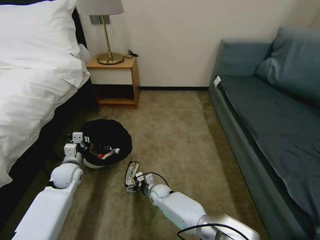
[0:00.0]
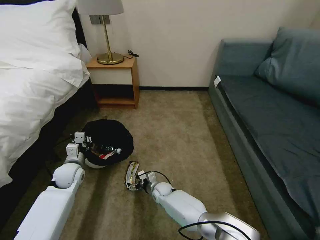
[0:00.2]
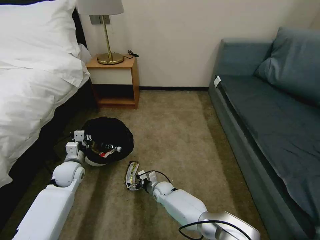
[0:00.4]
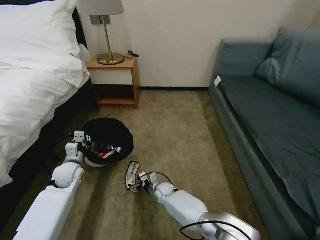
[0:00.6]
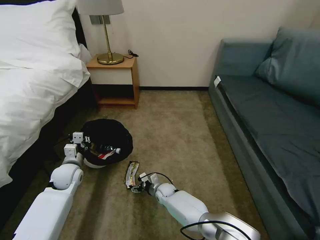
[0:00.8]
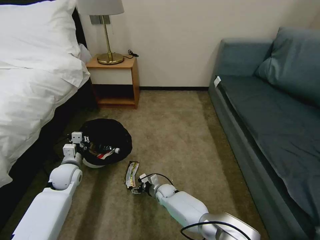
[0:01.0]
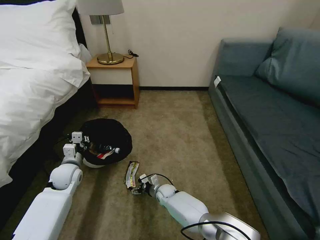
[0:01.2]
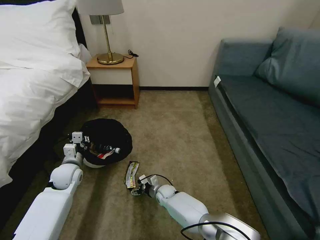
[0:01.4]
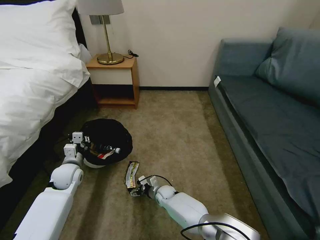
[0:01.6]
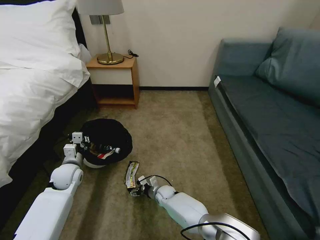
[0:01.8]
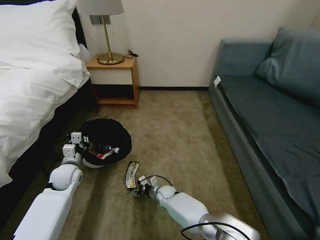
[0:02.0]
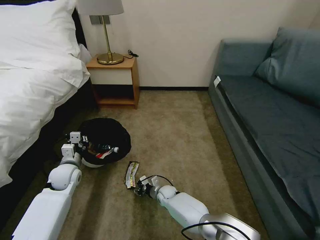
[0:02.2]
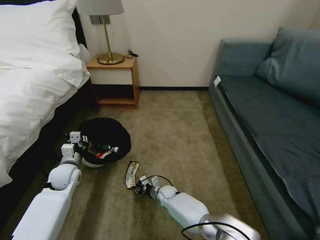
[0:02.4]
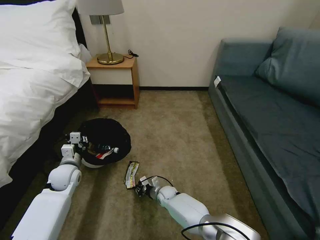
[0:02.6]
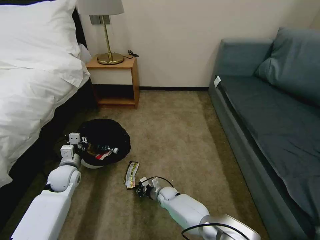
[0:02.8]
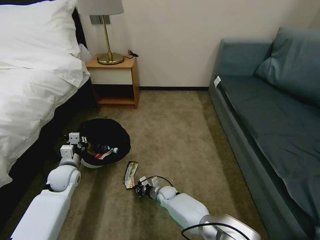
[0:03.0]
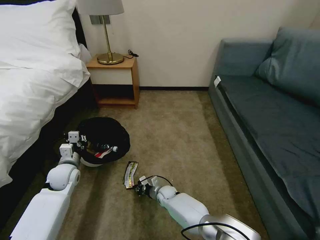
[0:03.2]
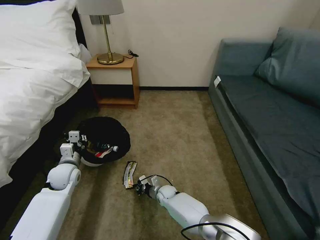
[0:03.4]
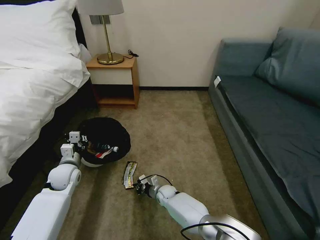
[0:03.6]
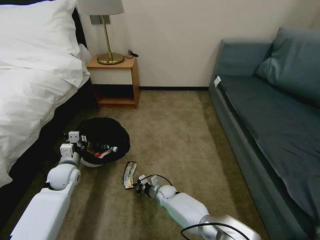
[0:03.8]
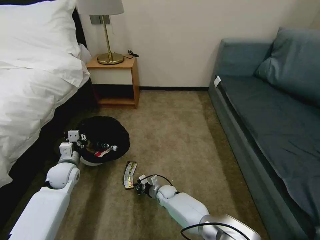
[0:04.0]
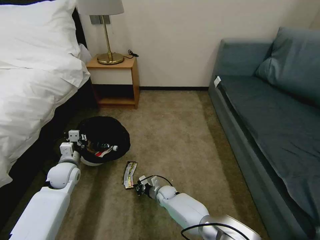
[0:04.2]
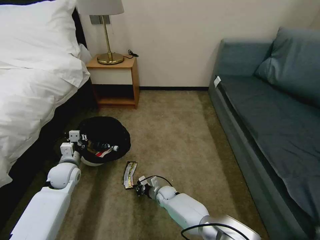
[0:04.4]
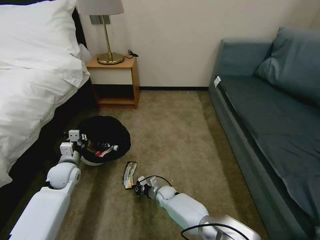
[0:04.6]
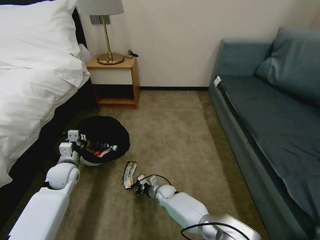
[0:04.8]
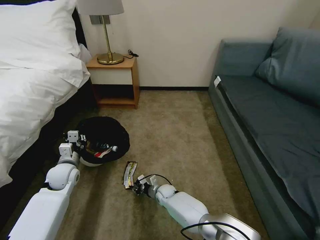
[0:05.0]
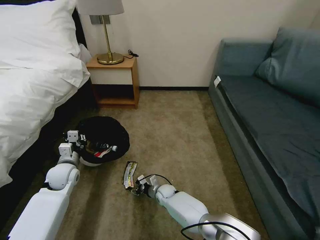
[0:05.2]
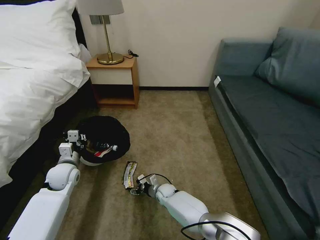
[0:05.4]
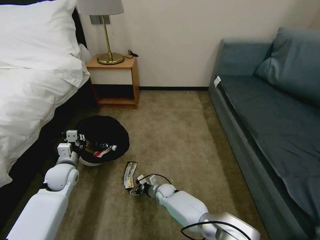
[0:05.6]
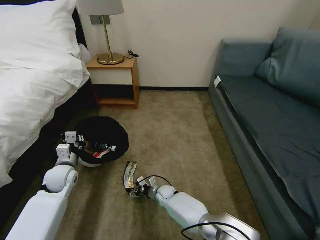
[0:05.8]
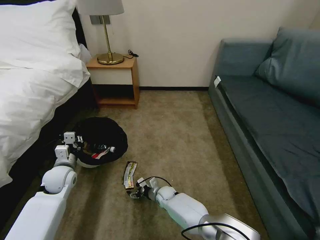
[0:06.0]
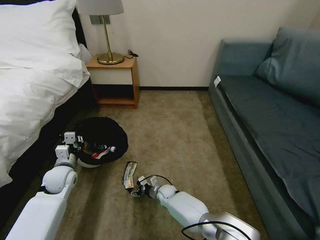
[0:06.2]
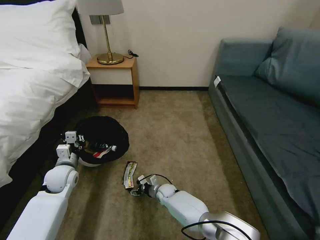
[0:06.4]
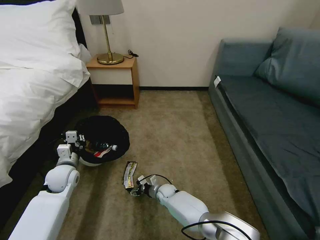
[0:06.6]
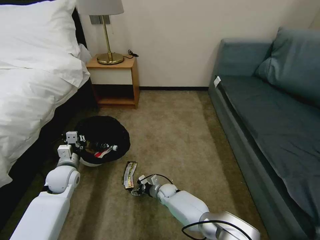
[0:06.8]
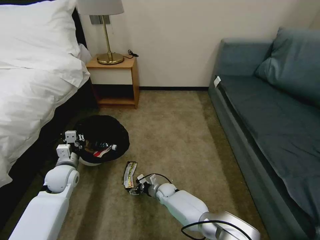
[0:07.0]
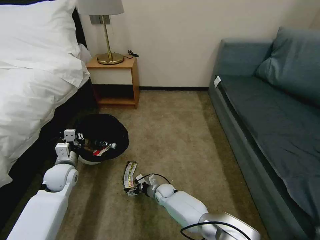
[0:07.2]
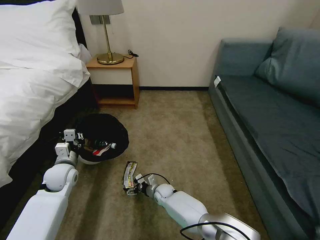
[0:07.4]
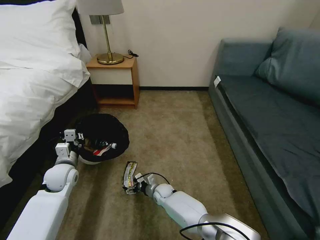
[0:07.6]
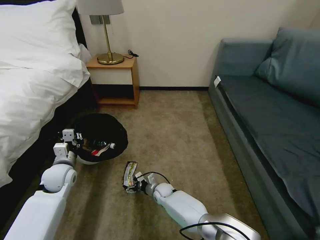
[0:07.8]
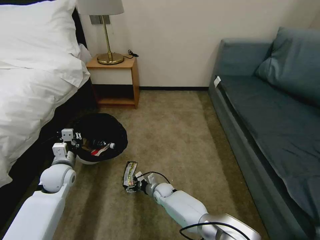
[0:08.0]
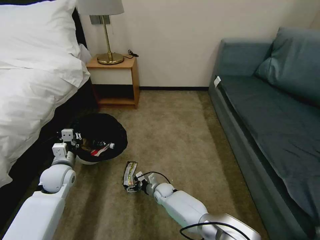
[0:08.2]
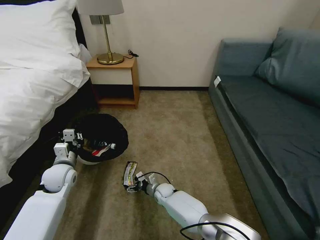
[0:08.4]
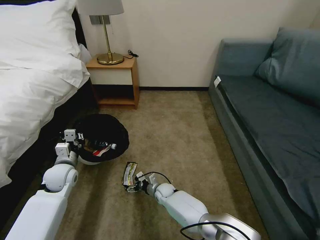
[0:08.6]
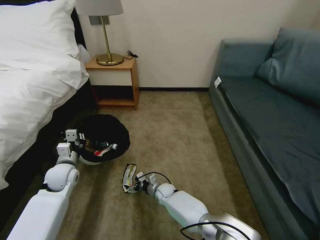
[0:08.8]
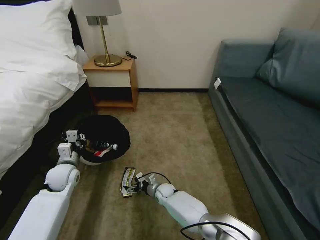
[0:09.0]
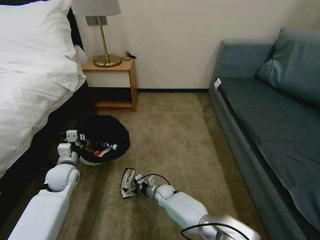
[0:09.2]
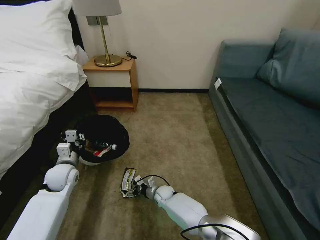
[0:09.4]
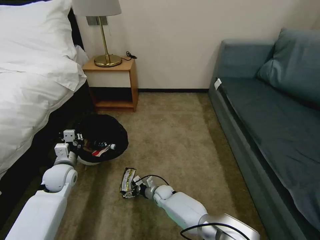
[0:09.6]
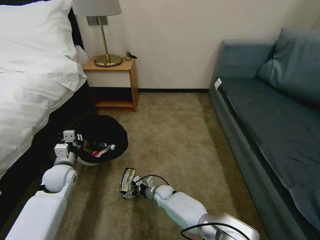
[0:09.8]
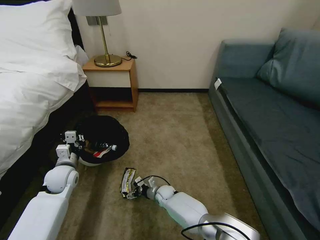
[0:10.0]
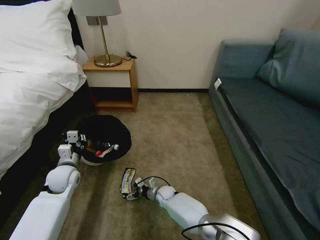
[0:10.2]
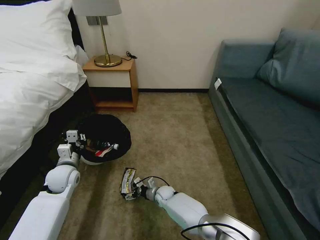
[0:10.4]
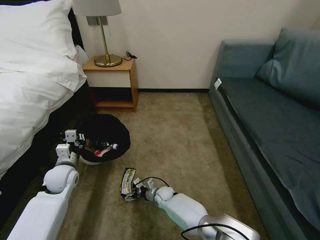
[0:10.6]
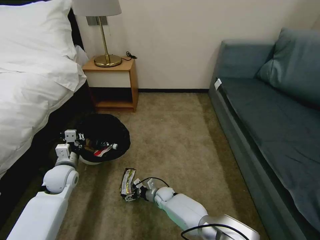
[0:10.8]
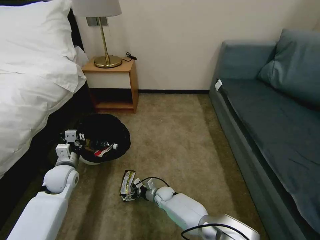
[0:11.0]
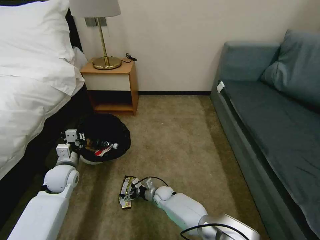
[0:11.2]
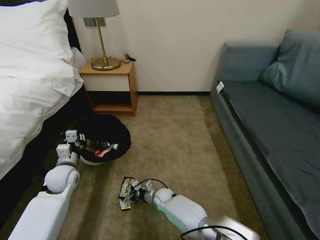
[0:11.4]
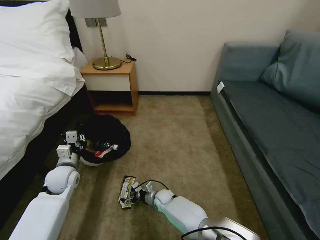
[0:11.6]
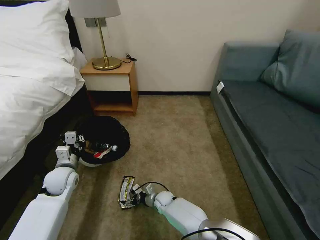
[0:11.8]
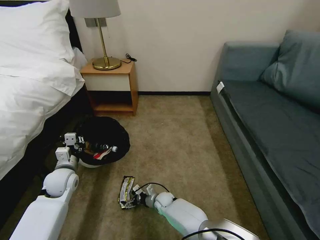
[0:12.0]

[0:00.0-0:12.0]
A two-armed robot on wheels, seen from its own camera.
Task of the whole recording: Pick up the trash bin, then pick up the garbage on the floor and place it into the trash bin.
0:00.0 to 0:01.6: The grippers stay close to where they were, moving slightly.
0:01.6 to 0:03.0: The right gripper closes its fingers.
0:03.0 to 0:04.4: Both grippers stay put.
0:04.4 to 0:06.0: The right gripper opens.
0:06.0 to 0:07.6: The grippers move only a little.
0:07.6 to 0:09.0: The two grippers keep their place.
0:09.0 to 0:12.0: The grippers make only small movements.

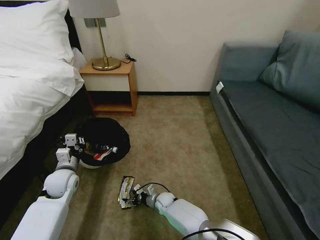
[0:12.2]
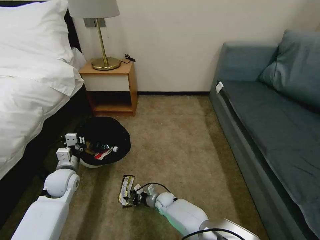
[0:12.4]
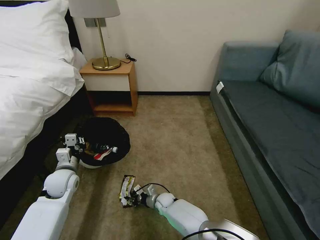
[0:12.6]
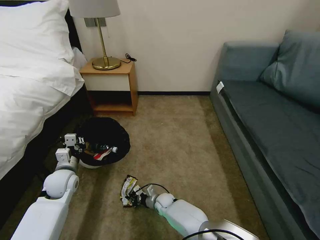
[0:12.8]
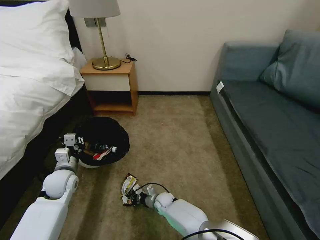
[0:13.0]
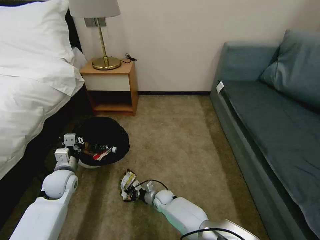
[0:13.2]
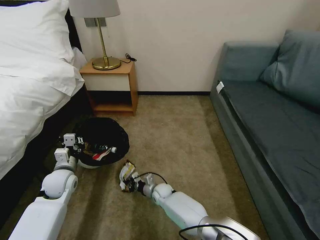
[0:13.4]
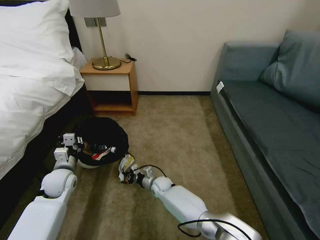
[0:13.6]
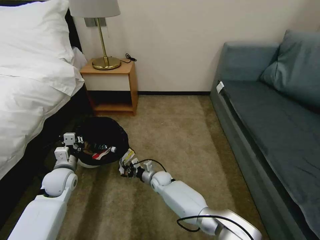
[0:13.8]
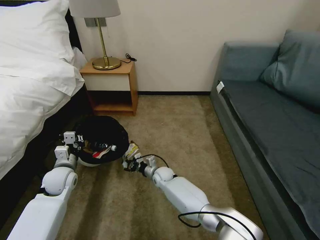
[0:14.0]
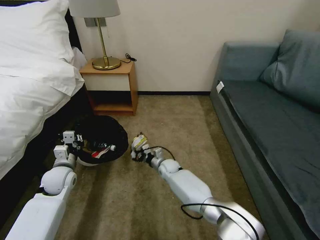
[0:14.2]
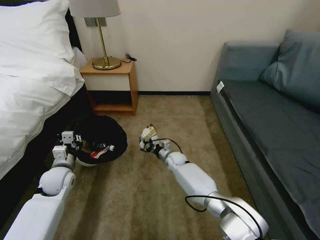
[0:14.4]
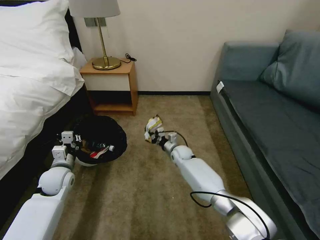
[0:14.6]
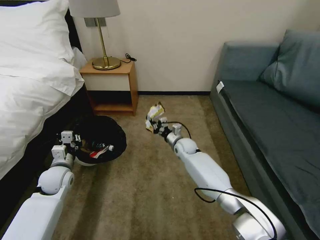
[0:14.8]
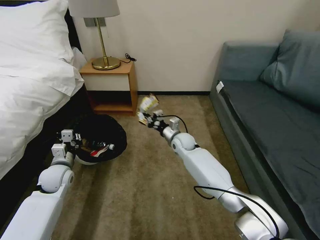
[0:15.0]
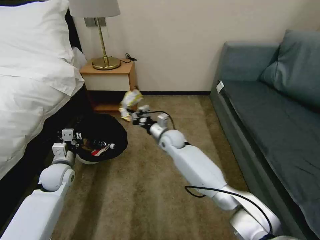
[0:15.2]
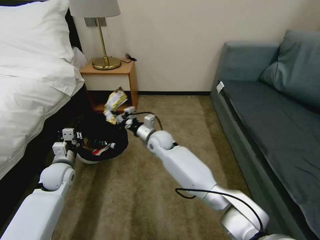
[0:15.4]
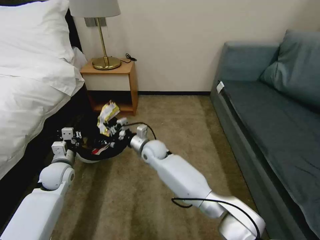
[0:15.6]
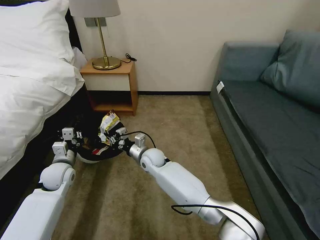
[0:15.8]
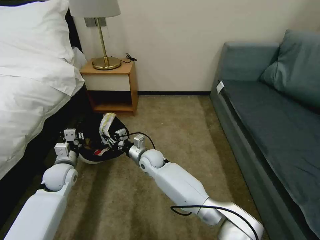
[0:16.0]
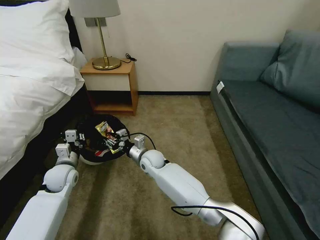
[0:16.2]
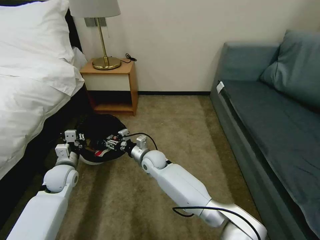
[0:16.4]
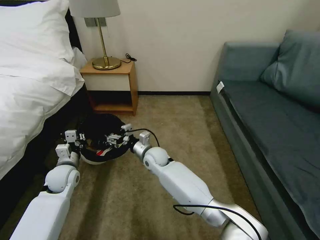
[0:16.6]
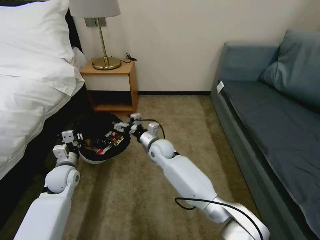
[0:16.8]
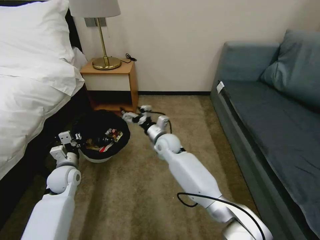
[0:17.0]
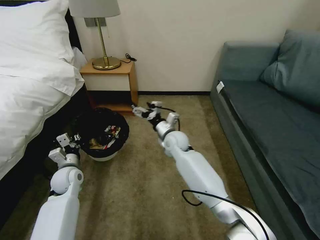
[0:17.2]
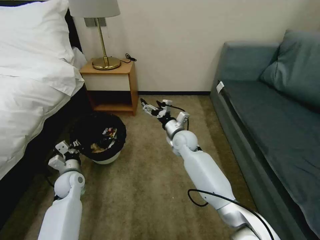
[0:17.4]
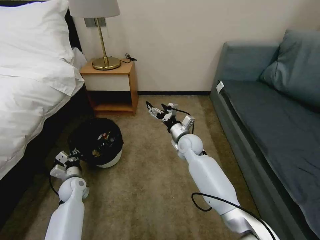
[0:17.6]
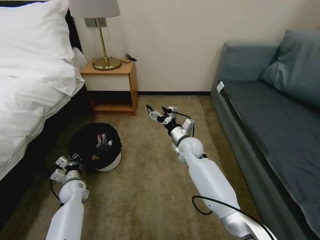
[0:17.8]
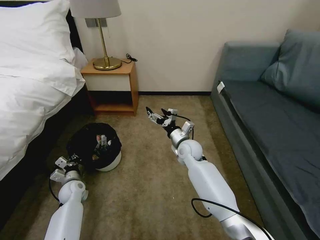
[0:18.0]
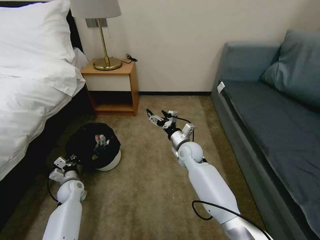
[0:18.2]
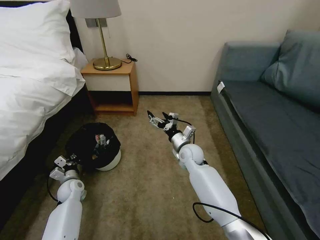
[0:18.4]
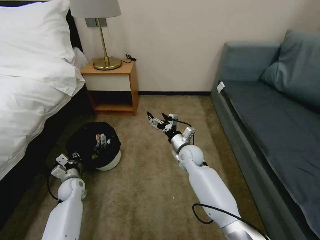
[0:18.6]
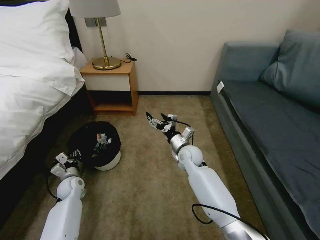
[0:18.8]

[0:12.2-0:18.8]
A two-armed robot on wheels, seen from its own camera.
Task of the whole recording: Pick up the trash bin, then pick up the garbage on the floor and place it into the trash bin.
0:12.2 to 0:13.8: The right gripper heads upward and forward, covering about 10 cm, and closes its fingers.
0:13.8 to 0:15.4: The right gripper moves upward, about 20 cm.
0:15.4 to 0:17.2: The right gripper goes approximately 5 cm to the right, and opens up.
0:17.2 to 0:18.8: The right gripper travels to the right and downward by roughly 5 cm, while the left gripper heads downward, covering roughly 10 cm, and opens.

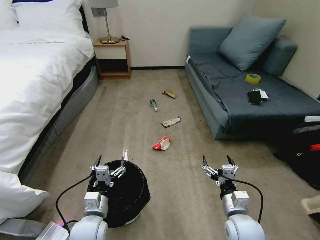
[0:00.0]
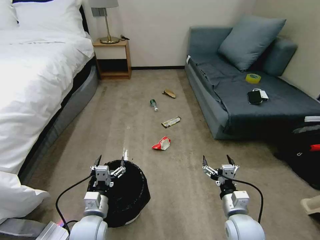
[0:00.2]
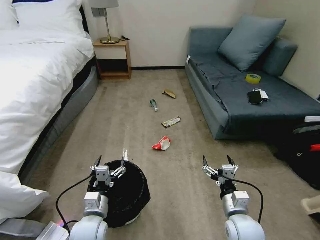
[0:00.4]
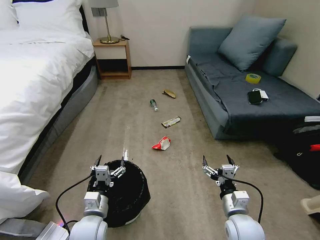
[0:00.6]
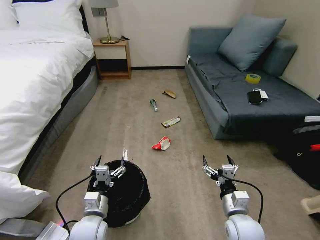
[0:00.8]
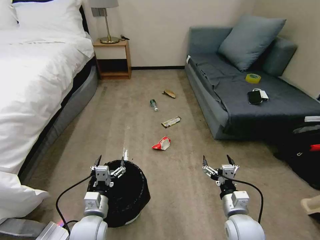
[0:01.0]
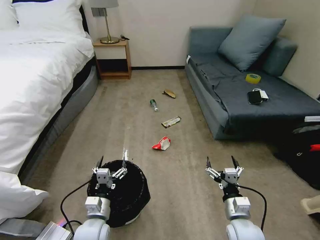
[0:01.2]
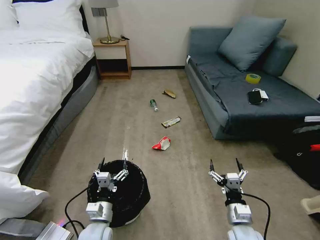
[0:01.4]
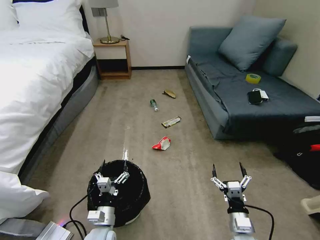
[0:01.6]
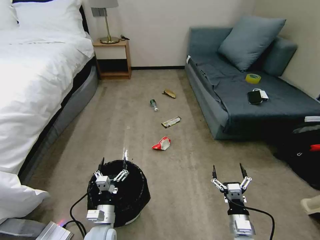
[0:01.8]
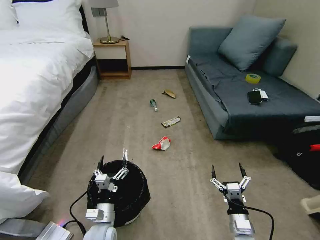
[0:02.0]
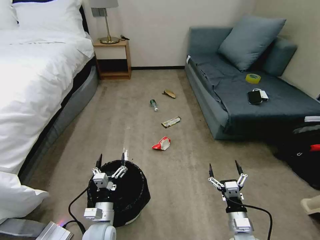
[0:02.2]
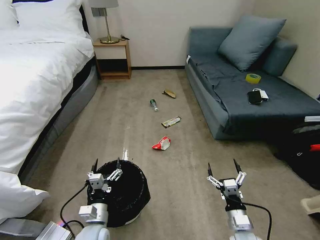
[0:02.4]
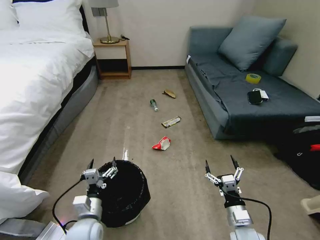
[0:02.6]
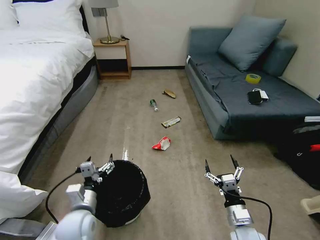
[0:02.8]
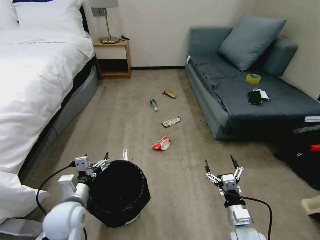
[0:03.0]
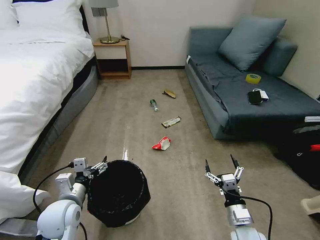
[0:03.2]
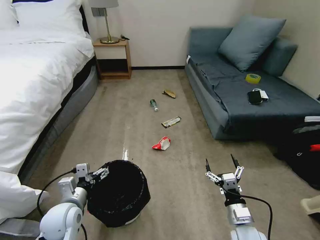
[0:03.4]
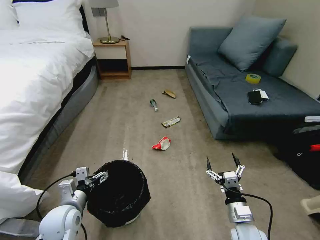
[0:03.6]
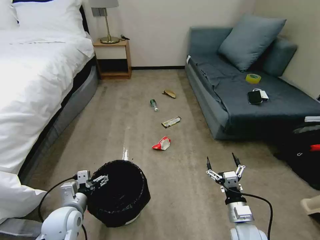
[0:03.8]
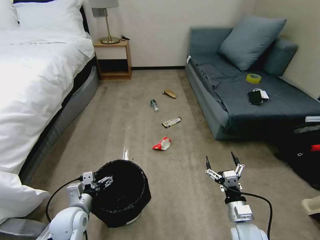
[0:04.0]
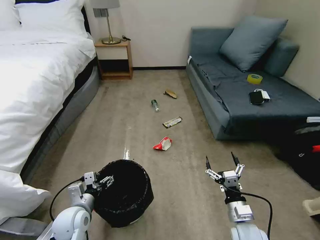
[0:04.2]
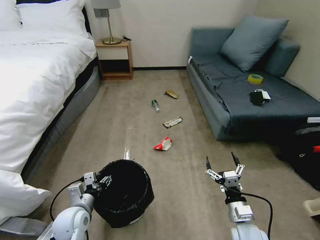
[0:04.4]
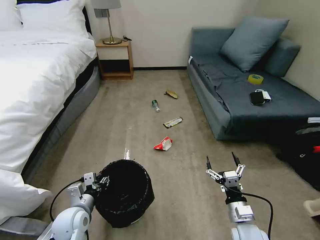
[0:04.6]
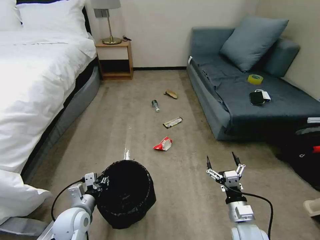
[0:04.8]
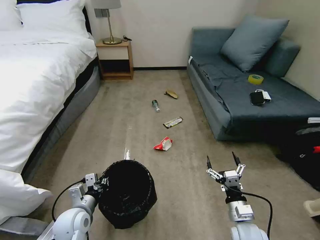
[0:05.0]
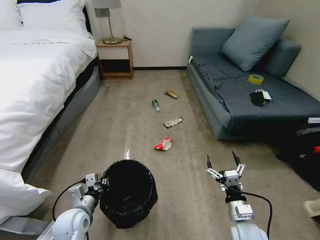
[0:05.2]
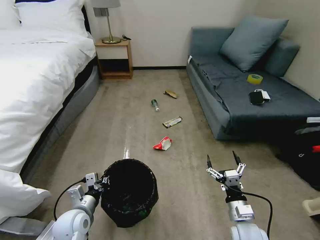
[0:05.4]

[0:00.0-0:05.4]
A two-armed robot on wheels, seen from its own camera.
Task of the whole recording: Pick up the trash bin, then pick up the garbage on the floor and place it into the trash bin.
0:01.4 to 0:02.8: The left gripper is displaced upward by about 5 cm.
0:02.8 to 0:04.0: The left gripper moves approximately 5 cm.
0:04.0 to 0:05.4: The left gripper closes its fingers.
